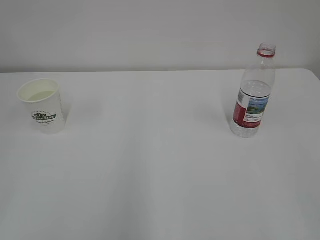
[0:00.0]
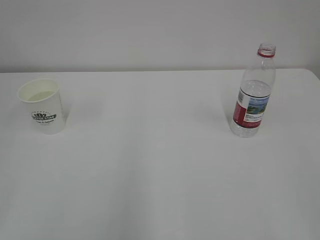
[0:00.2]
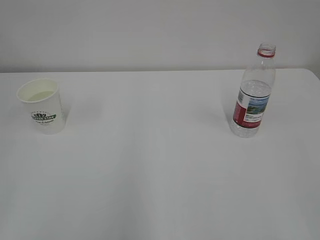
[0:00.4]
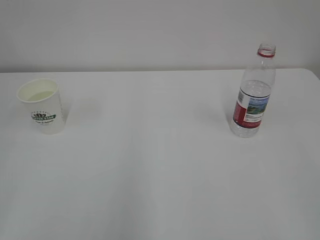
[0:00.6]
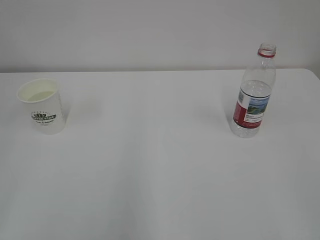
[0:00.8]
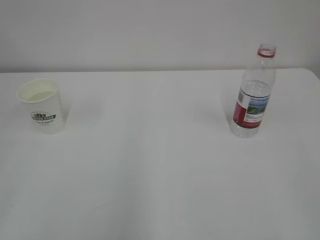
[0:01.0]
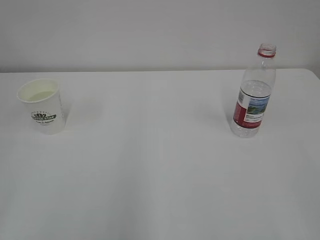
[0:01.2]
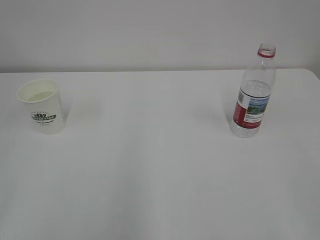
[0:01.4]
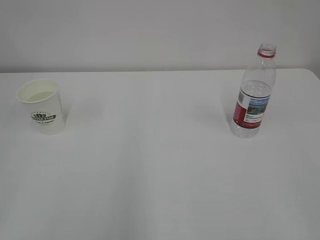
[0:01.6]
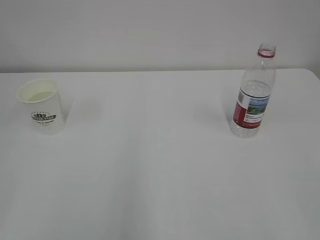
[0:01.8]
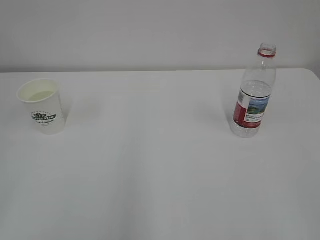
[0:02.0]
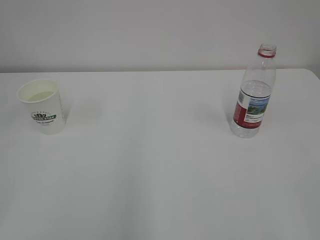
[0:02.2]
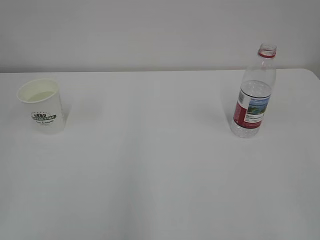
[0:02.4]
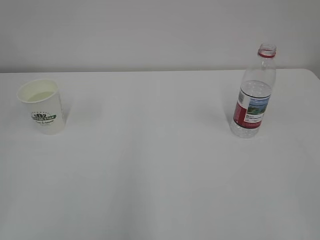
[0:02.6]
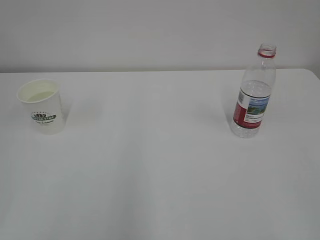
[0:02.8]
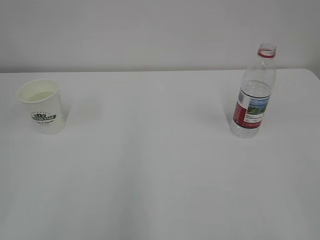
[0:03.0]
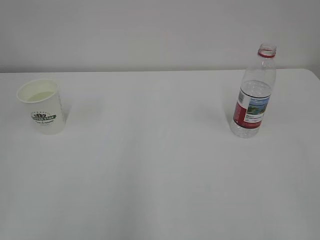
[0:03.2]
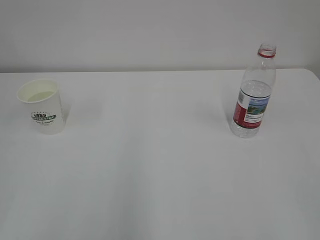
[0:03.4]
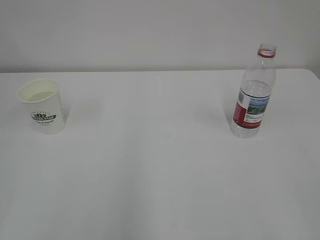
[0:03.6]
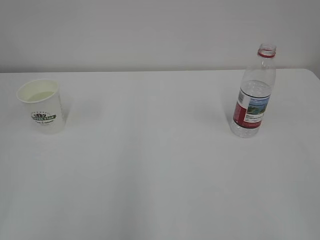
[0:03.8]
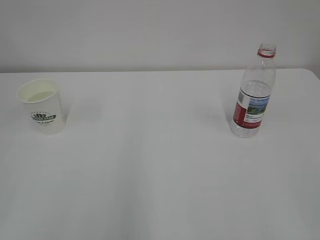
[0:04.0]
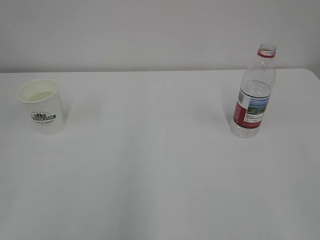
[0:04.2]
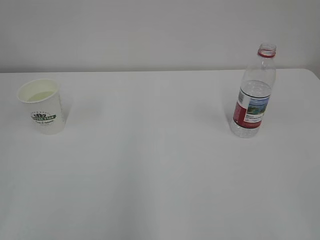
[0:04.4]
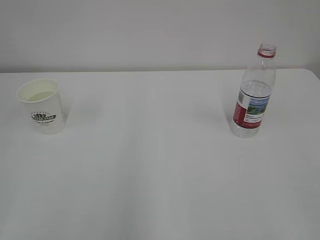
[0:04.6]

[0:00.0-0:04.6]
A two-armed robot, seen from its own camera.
0:03.0 to 0:04.6: Neither gripper changes place.
